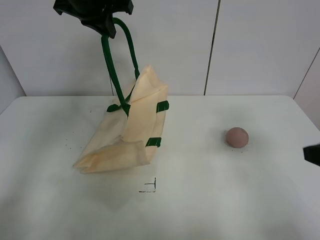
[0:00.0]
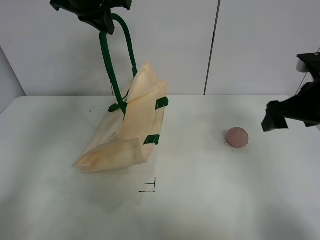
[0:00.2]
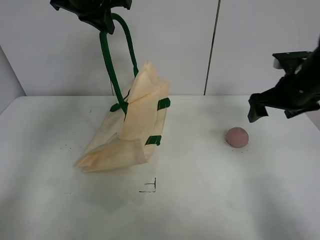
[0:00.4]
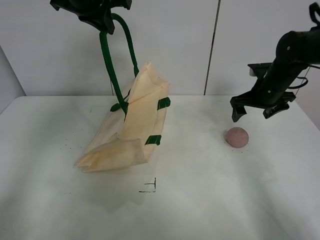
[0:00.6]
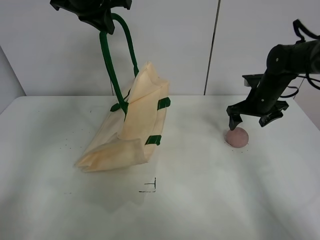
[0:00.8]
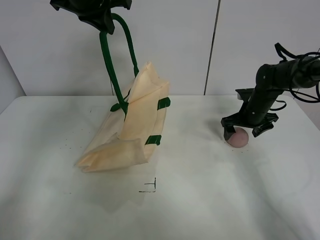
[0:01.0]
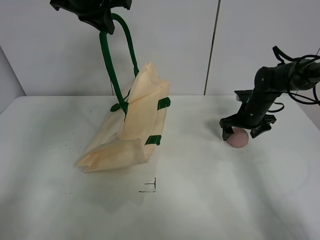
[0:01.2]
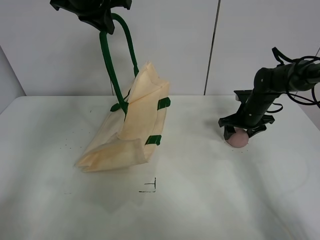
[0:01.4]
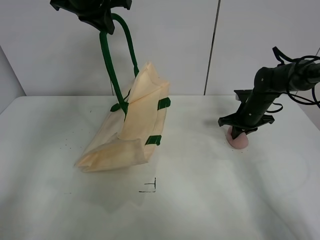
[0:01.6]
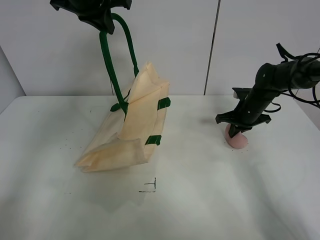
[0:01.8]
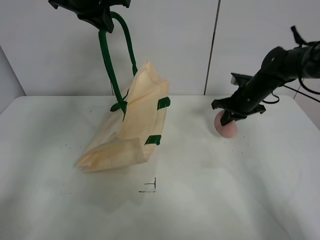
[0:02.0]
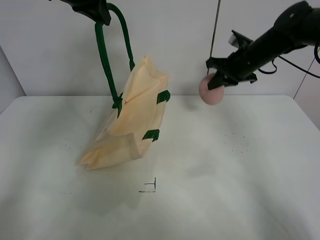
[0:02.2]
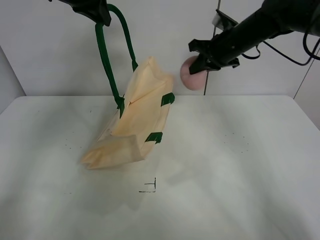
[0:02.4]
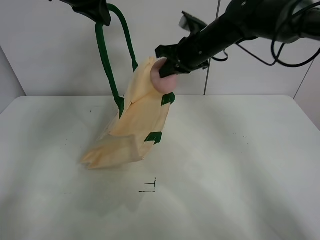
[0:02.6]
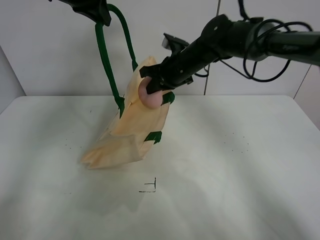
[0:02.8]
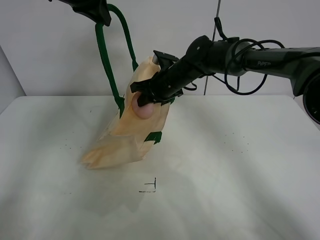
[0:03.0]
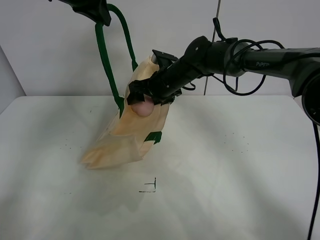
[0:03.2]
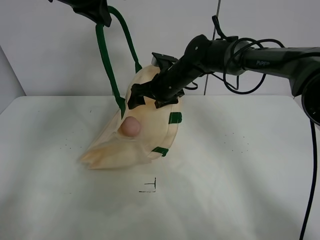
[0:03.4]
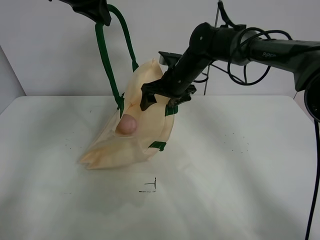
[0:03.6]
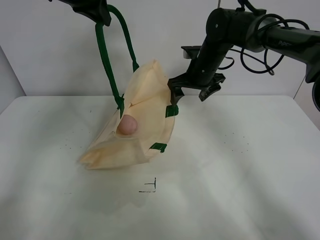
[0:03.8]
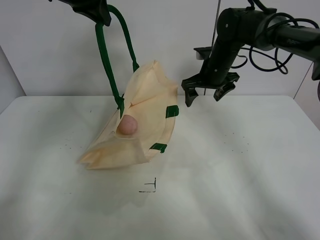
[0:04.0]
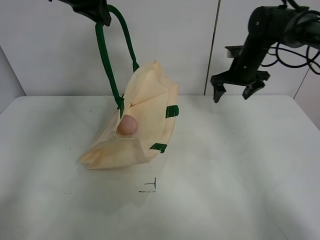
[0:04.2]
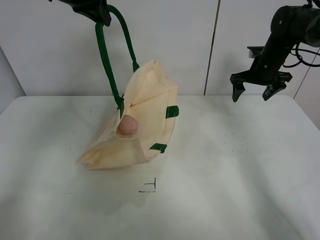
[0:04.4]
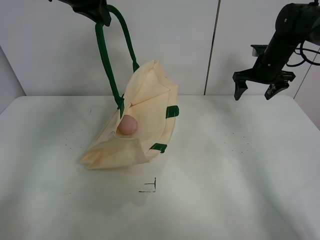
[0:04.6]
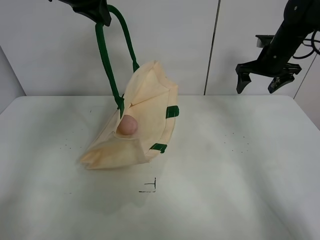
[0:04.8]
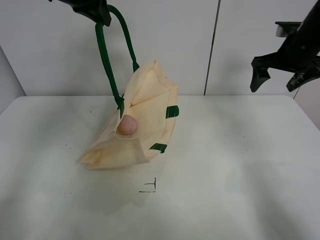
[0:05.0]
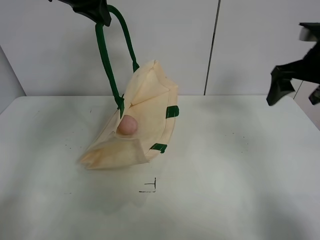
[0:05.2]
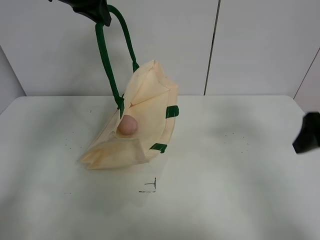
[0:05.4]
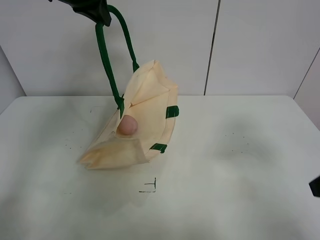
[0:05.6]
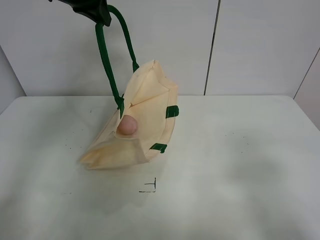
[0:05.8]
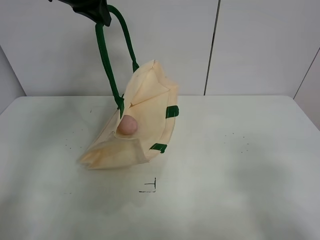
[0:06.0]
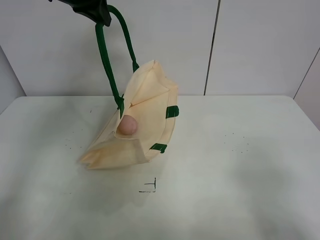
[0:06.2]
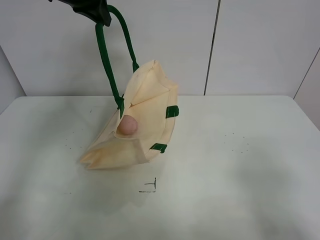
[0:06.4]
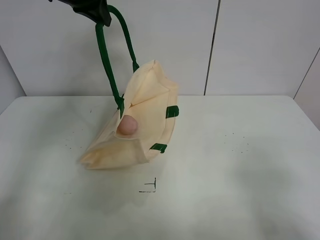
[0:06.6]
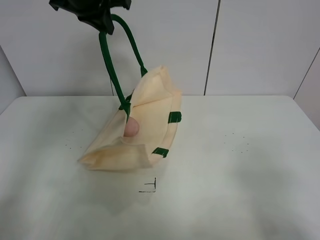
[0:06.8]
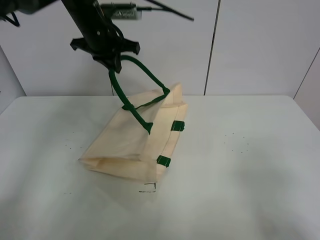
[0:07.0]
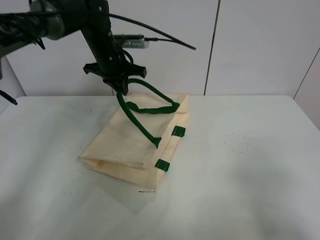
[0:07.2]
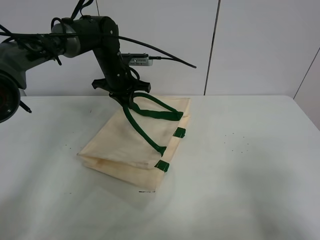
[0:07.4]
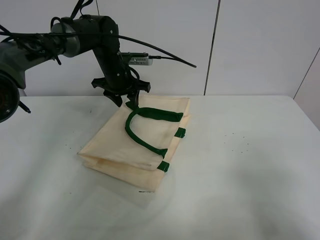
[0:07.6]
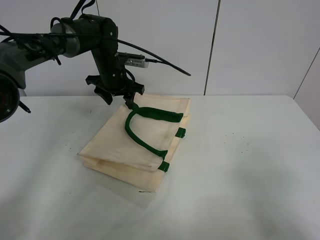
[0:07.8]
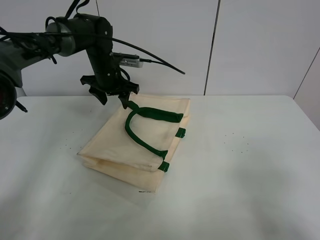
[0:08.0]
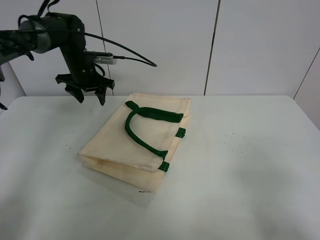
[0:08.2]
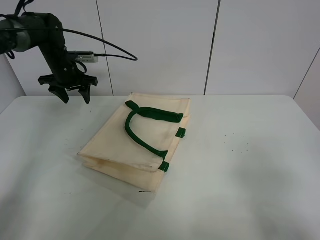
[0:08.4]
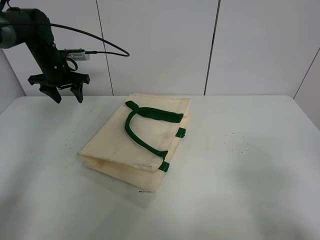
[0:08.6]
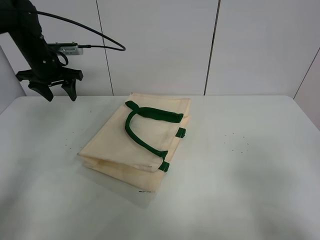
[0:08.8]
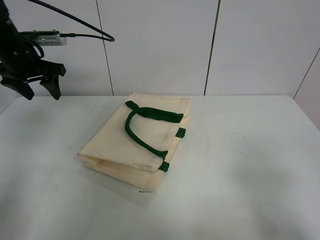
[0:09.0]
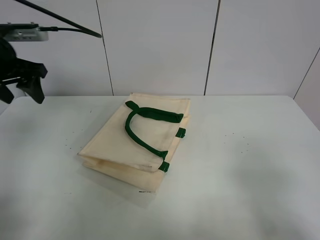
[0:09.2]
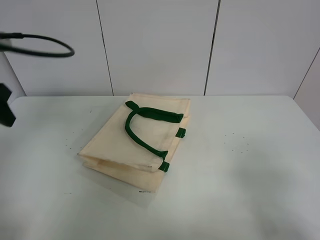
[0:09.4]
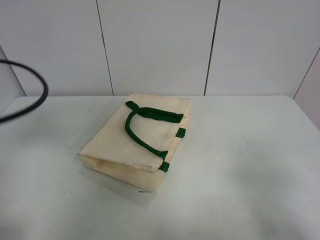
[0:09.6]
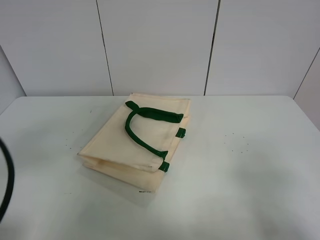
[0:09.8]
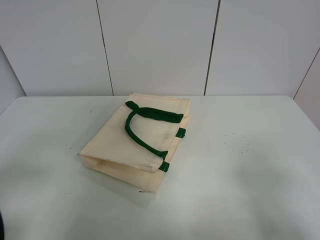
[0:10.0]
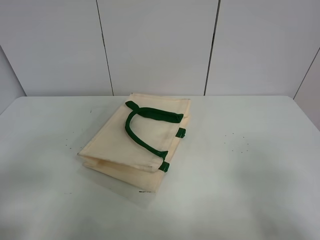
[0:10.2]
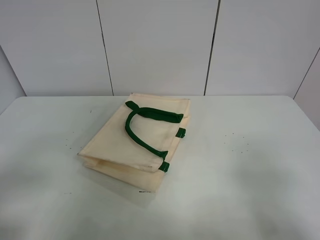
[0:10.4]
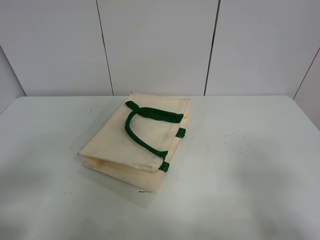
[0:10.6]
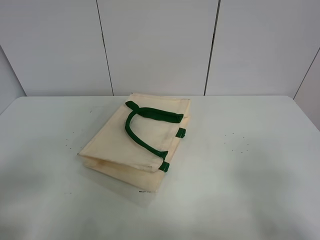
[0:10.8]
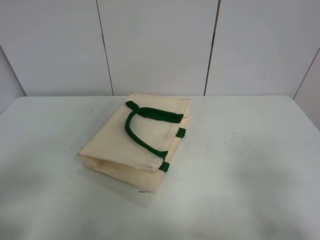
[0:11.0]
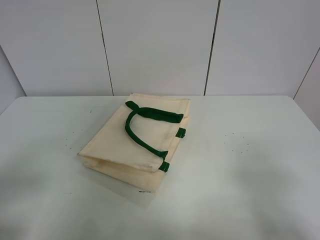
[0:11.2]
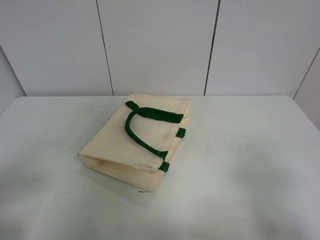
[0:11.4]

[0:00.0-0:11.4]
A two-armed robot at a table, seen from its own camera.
Task of the whole recording: open the white linen bag and put the peach in the bag.
Step, 0:00.0 to 0:01.6: Grasp the peach with right gripper.
Step, 0:01.8 to 0:03.6: Place the peach in the handbag with right gripper.
Step, 0:03.8 to 0:07.6: Put down the handbag with left gripper.
0:00.0 to 0:01.4: The right gripper moves forward and downward, approximately 35 cm, and closes.
0:01.4 to 0:02.8: The right gripper goes about 25 cm to the left and upward, and closes up.
0:02.8 to 0:04.2: The right gripper heads to the right, covering roughly 20 cm, and opens.
0:04.2 to 0:05.6: The right gripper goes about 35 cm backward.
0:05.6 to 0:07.2: The right gripper heads backward, covering about 10 cm. The left gripper travels downward by roughly 15 cm.
0:07.2 to 0:08.6: The left gripper shifts some 15 cm to the left, and opens up.
0:08.6 to 0:10.0: The left gripper shifts approximately 40 cm backward.
